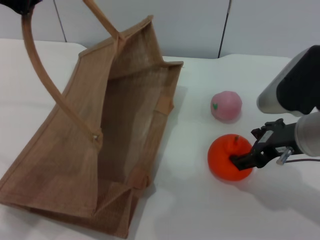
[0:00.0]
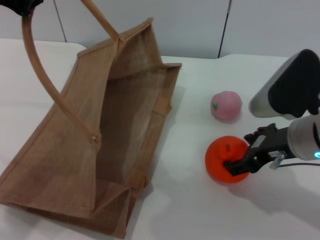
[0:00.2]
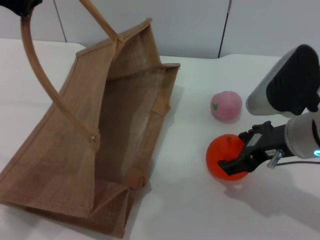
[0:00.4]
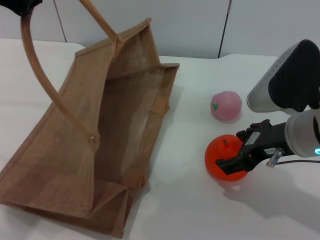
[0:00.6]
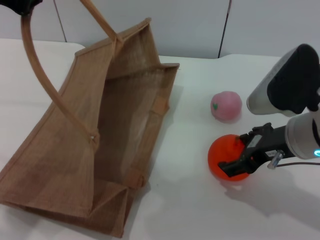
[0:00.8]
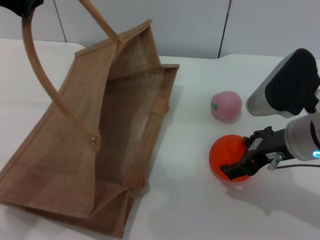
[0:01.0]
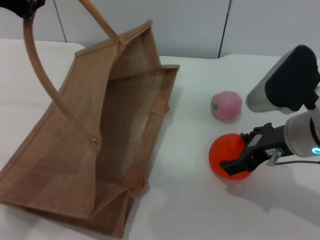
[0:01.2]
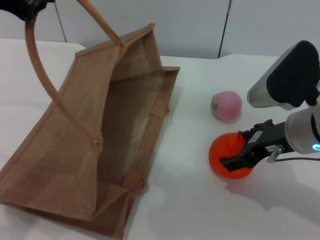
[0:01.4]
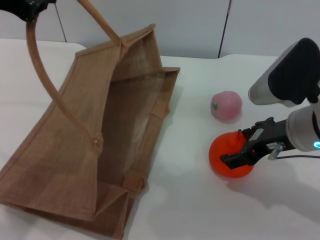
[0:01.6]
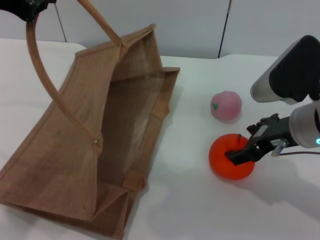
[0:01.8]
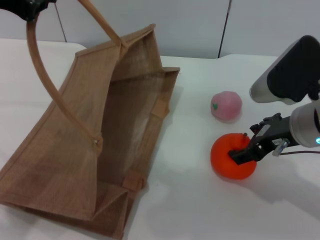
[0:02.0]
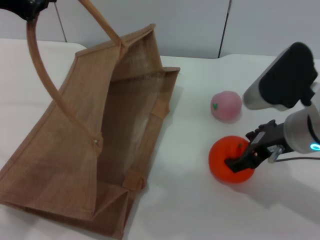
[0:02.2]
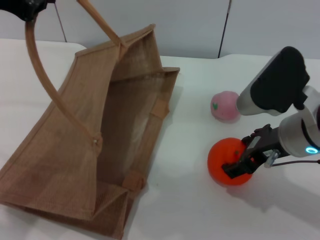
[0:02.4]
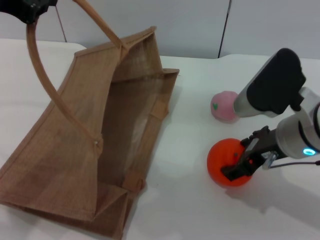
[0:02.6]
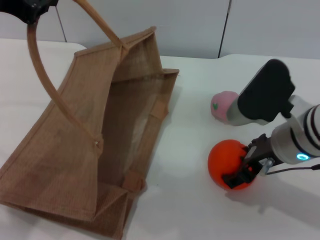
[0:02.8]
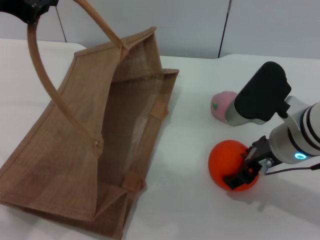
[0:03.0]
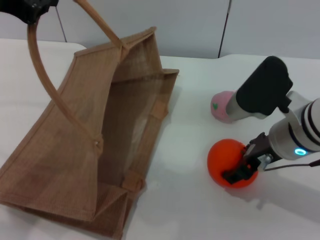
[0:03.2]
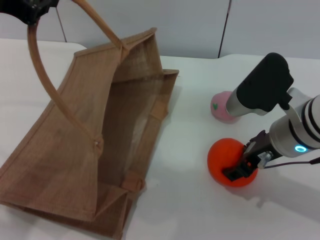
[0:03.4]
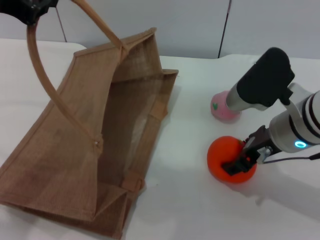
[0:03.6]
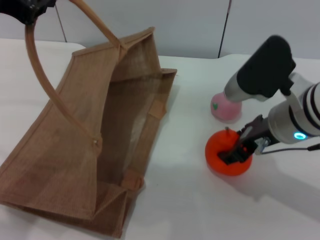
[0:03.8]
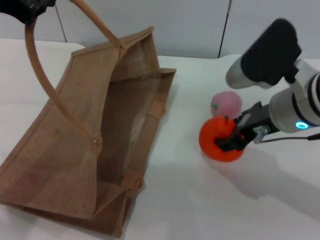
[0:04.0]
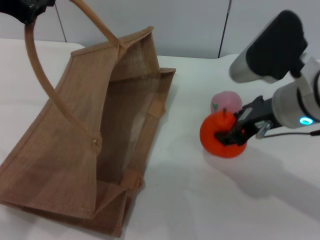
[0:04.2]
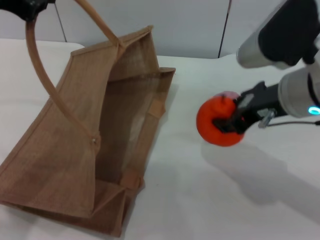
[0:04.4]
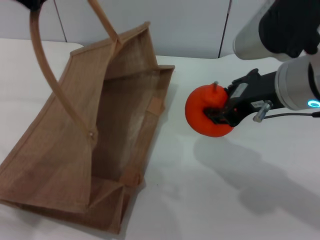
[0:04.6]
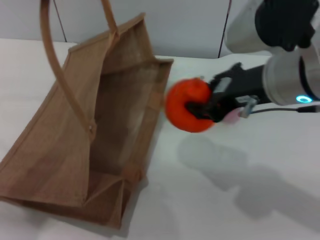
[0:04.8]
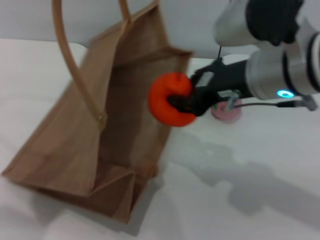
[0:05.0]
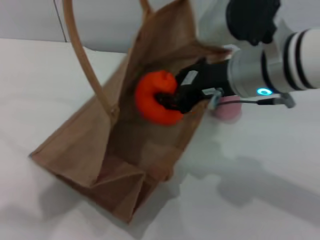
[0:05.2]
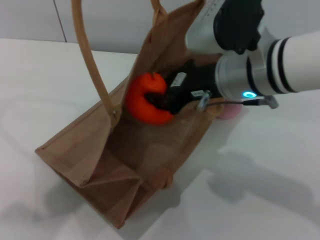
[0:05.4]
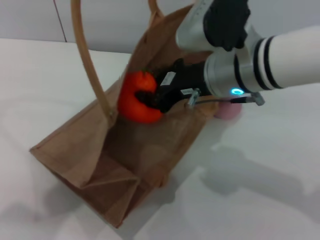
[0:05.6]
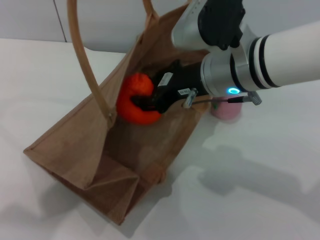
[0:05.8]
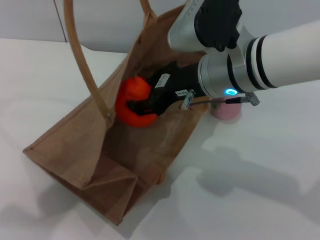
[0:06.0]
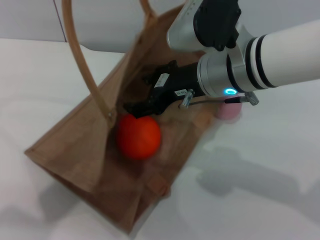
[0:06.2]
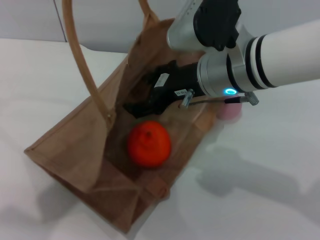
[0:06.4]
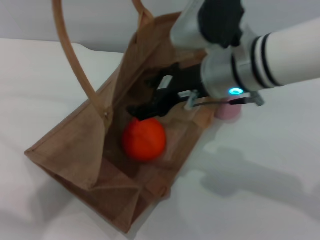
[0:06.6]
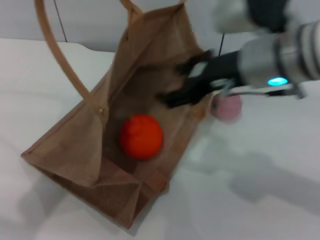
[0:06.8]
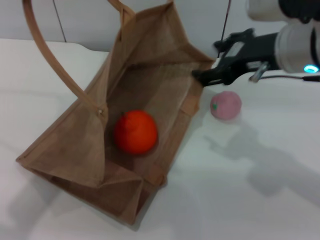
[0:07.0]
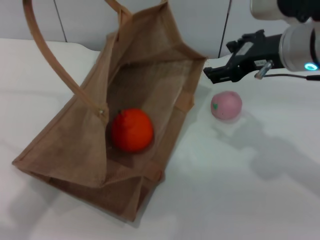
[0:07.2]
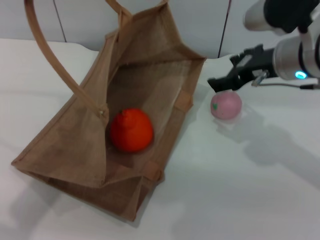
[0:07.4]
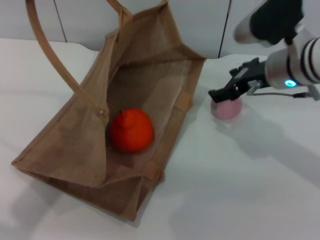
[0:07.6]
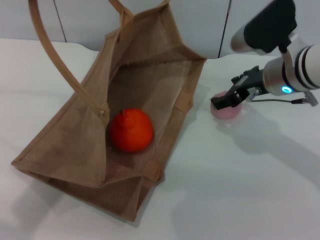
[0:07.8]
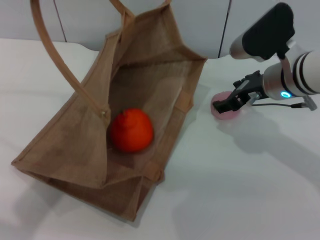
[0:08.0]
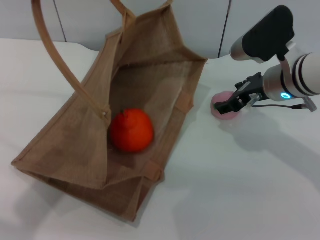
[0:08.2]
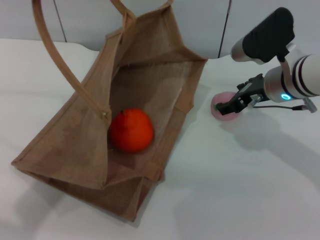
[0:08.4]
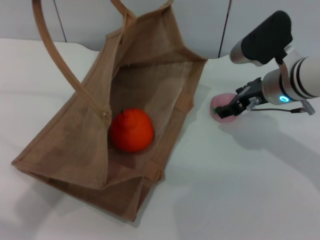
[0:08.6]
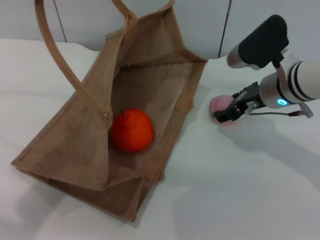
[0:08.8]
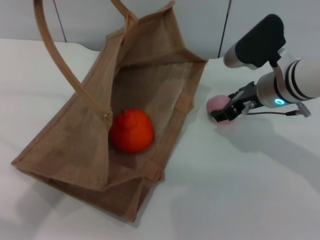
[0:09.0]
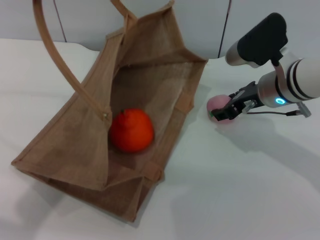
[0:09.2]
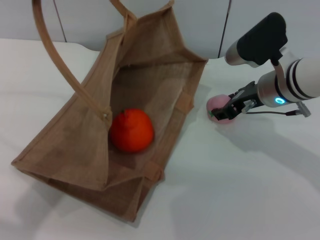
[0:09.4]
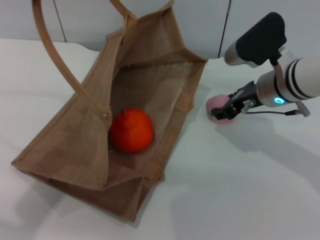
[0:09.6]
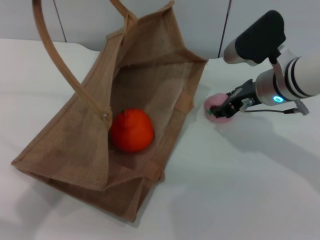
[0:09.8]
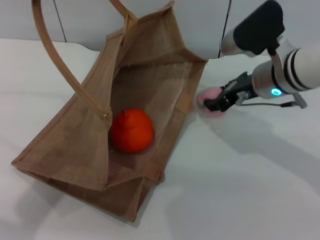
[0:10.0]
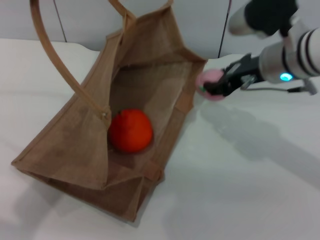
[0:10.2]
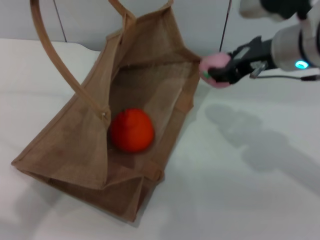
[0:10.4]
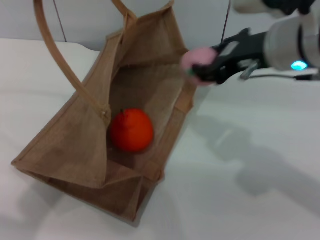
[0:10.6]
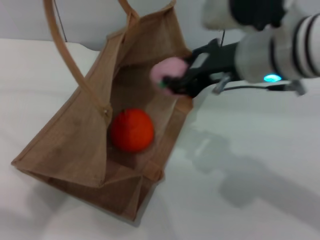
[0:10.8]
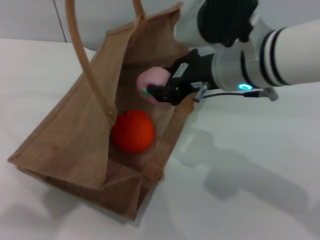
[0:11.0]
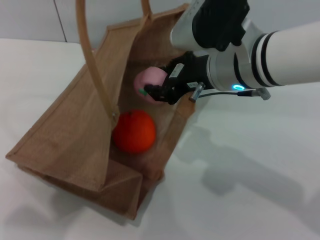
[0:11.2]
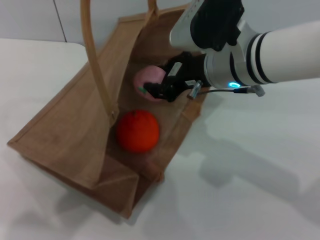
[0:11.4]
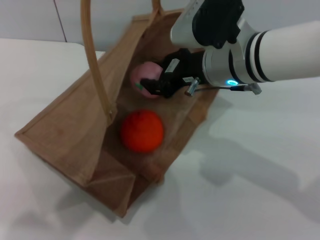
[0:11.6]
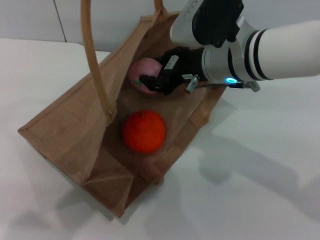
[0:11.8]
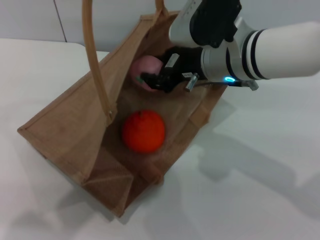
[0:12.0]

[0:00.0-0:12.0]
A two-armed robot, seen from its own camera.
Task of the whole recording: pick up the orange and peach from the table and place it in the brown handbag.
Step, 0:00.0 to 0:04.4: Pick up the orange with the right gripper.
Step, 0:04.6 to 0:07.4: Place the orange into the woven bag with the right gripper.
Step, 0:07.6 to 0:10.2: Pick up the peach with the right gripper.
0:00.0 to 0:03.0: The grippers make only small movements.
0:03.0 to 0:04.4: The right gripper travels upward by about 10 cm, and closes.
0:04.4 to 0:06.0: The left gripper changes place by about 5 cm, while the right gripper is displaced to the left by some 10 cm.
0:06.0 to 0:07.6: The right gripper goes approximately 10 cm to the right, and opens up.
0:07.6 to 0:09.0: The grippers move only a little.
0:09.0 to 0:10.4: The right gripper heads upward, covering approximately 10 cm, and closes its fingers.
0:10.4 to 0:12.0: The left gripper shifts about 5 cm to the right; the right gripper travels to the left by roughly 10 cm.

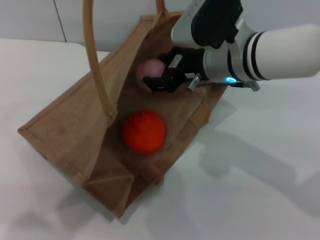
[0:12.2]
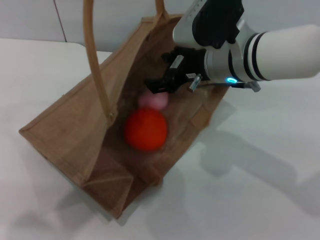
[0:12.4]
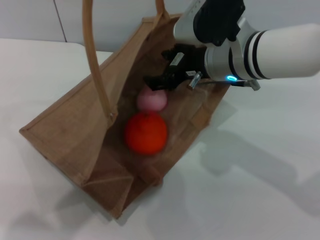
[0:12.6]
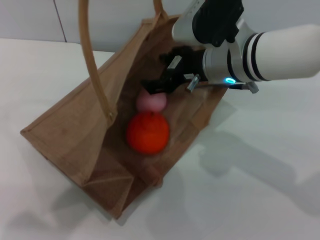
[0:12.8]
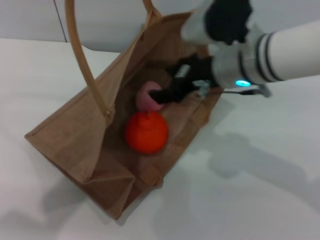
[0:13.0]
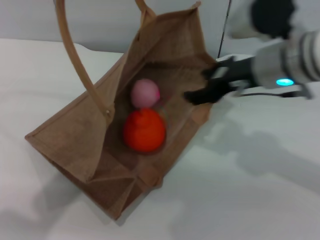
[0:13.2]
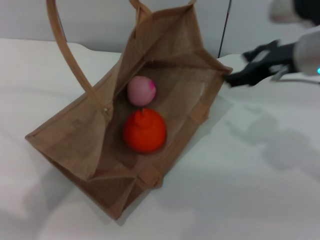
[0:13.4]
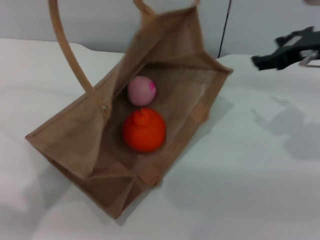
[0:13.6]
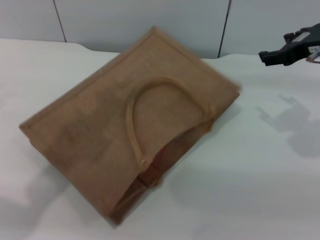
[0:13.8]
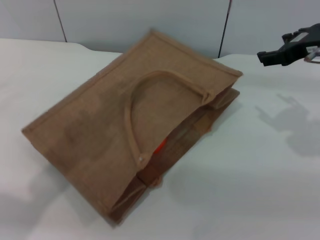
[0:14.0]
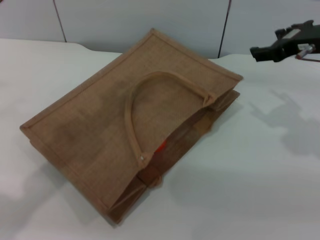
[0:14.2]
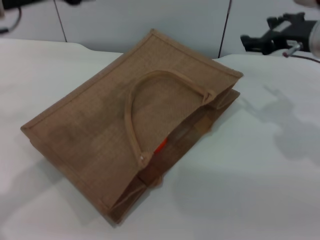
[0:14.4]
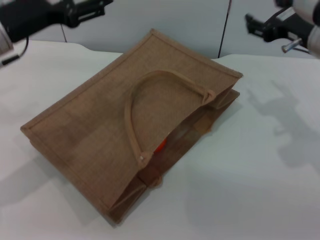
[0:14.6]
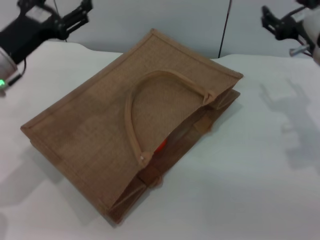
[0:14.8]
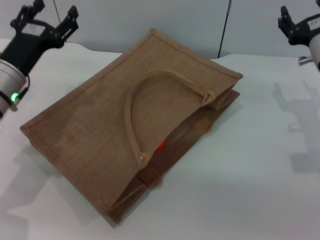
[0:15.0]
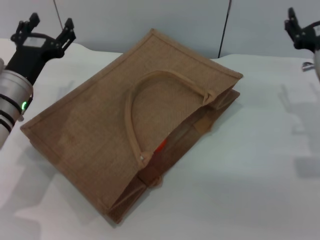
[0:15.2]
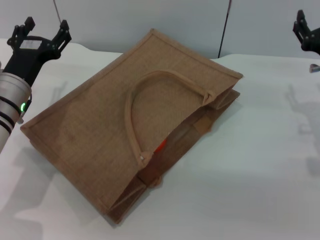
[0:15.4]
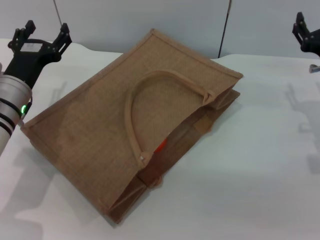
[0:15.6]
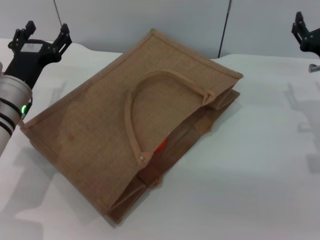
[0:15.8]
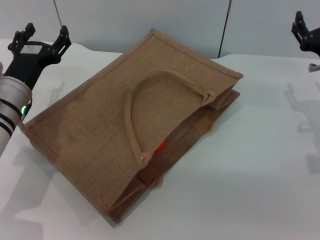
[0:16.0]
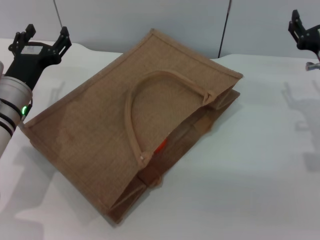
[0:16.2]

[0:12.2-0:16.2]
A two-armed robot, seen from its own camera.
Task of the whole recording: pick up the orange and peach from the table and place it in the brown handbag.
Step, 0:13.4 to 0:14.6: Lower the woven bag with the left gripper to close it.
0:12.2 to 0:13.6: The left gripper shifts roughly 5 cm to the left. Meanwhile the right gripper is displaced to the right by roughly 15 cm, and opens.
0:13.6 to 0:14.8: The right gripper moves downward, some 5 cm. Meanwhile the left gripper travels downward by roughly 20 cm, and opens its fingers.
0:14.8 to 0:16.2: The grippers both shift downward by roughly 5 cm.
